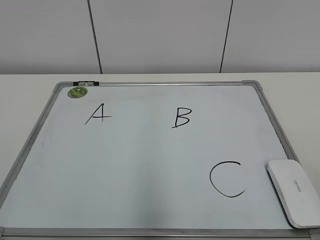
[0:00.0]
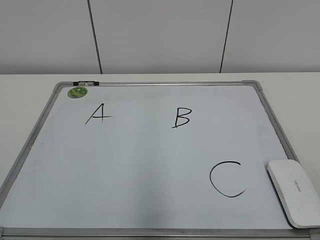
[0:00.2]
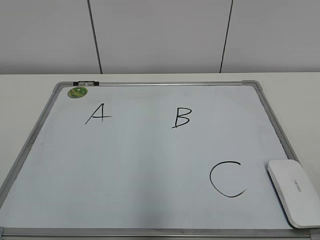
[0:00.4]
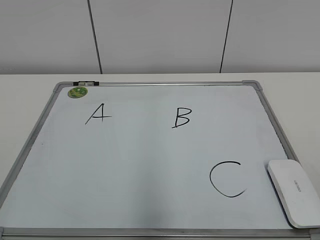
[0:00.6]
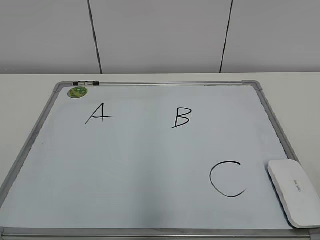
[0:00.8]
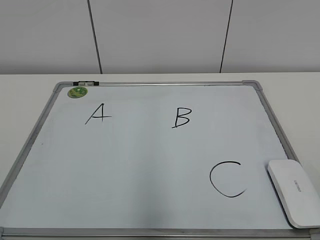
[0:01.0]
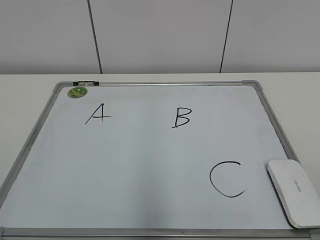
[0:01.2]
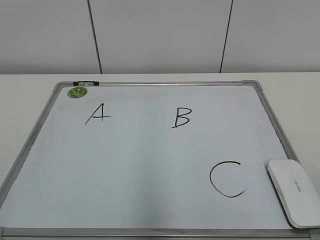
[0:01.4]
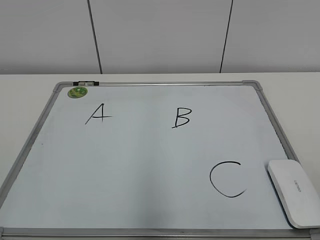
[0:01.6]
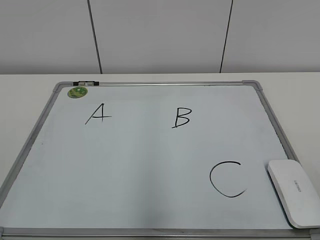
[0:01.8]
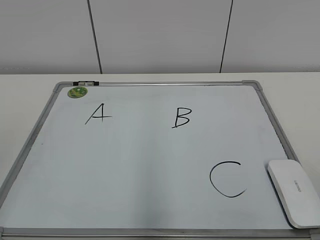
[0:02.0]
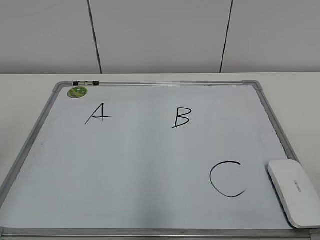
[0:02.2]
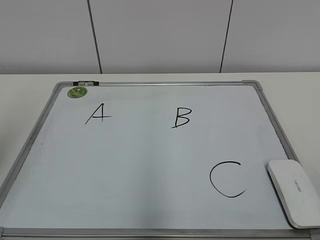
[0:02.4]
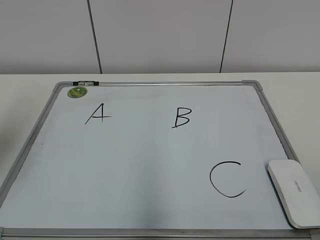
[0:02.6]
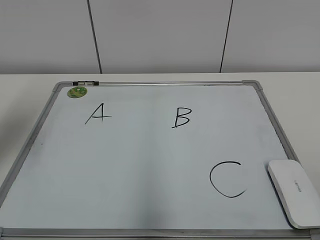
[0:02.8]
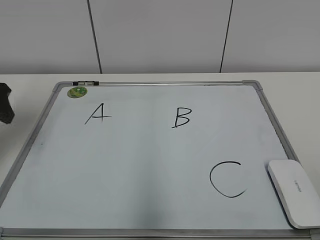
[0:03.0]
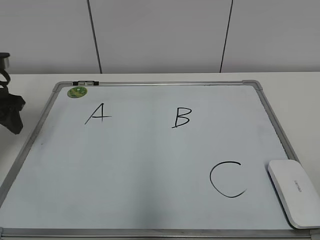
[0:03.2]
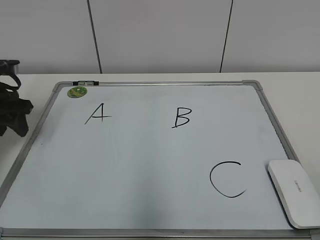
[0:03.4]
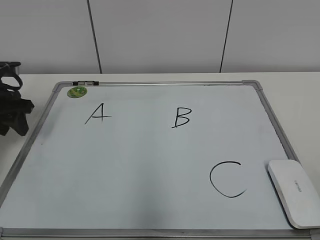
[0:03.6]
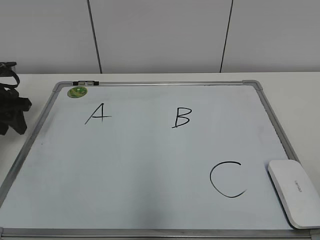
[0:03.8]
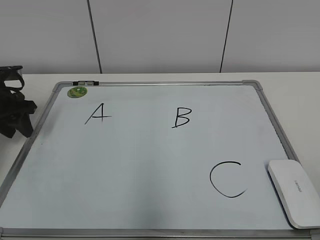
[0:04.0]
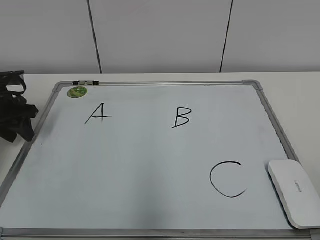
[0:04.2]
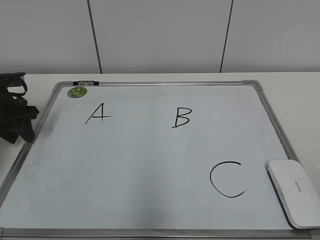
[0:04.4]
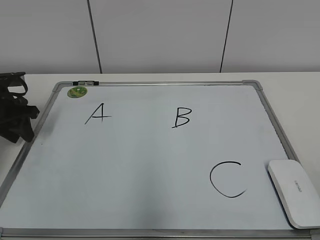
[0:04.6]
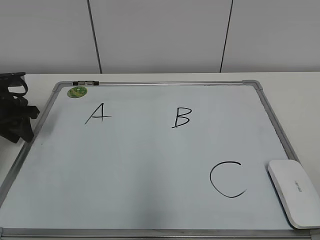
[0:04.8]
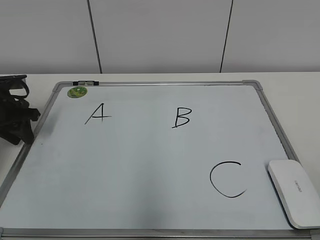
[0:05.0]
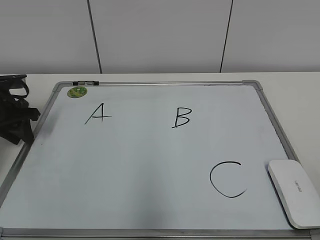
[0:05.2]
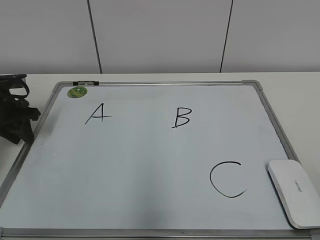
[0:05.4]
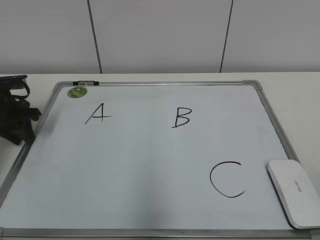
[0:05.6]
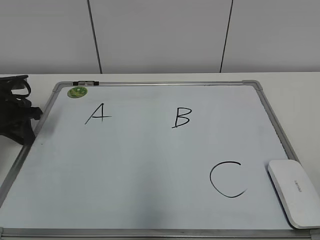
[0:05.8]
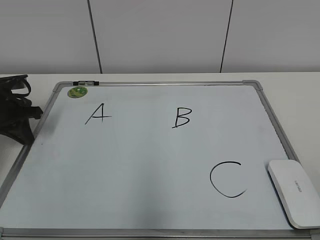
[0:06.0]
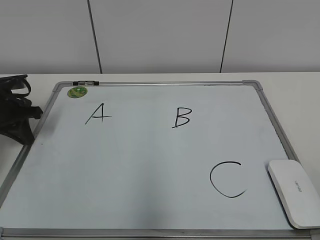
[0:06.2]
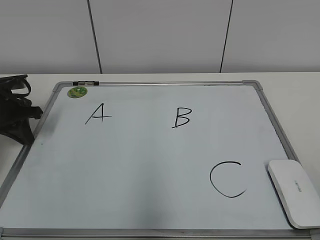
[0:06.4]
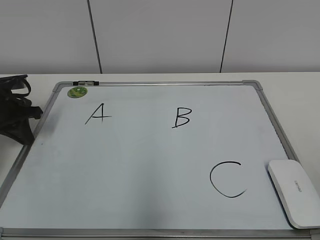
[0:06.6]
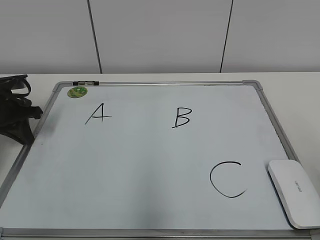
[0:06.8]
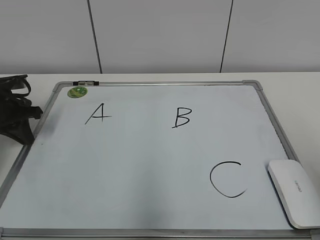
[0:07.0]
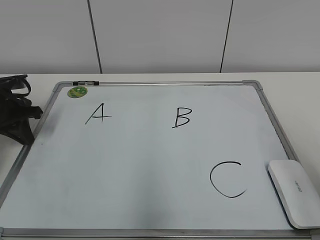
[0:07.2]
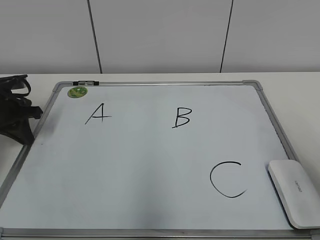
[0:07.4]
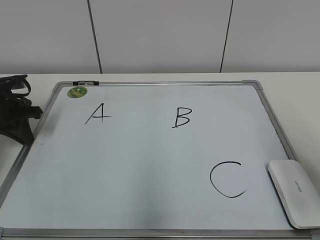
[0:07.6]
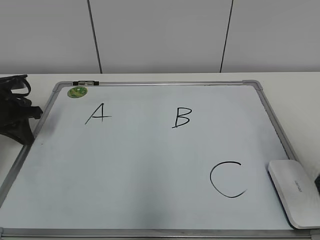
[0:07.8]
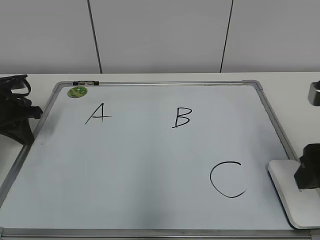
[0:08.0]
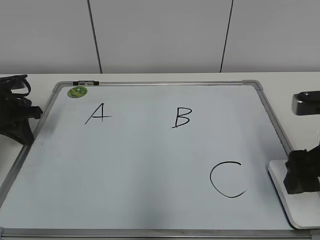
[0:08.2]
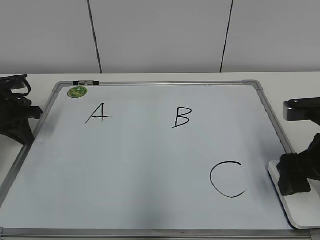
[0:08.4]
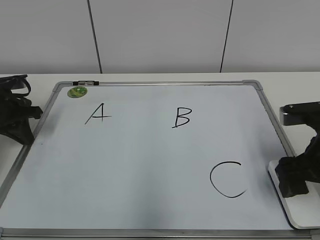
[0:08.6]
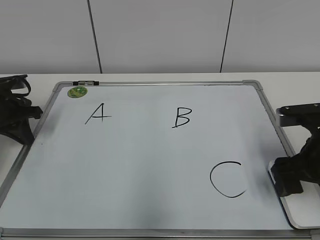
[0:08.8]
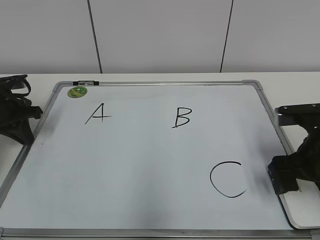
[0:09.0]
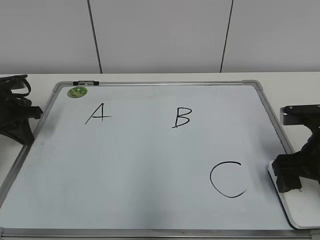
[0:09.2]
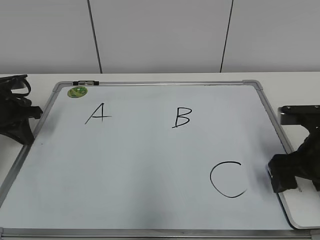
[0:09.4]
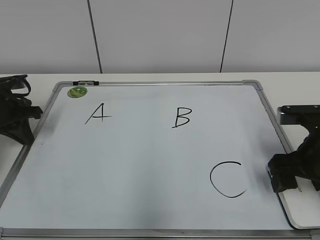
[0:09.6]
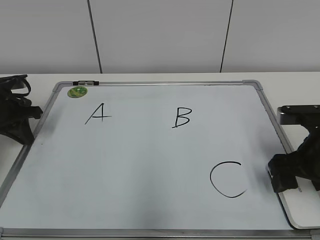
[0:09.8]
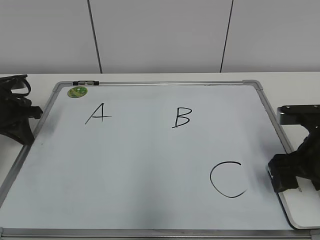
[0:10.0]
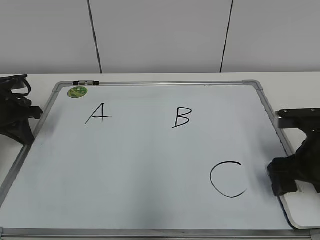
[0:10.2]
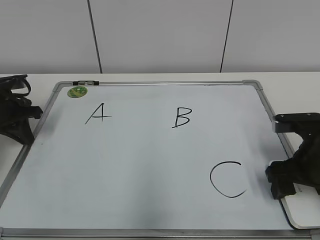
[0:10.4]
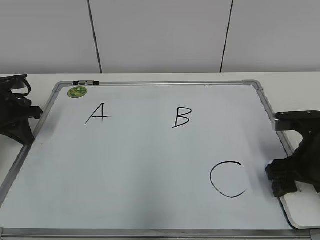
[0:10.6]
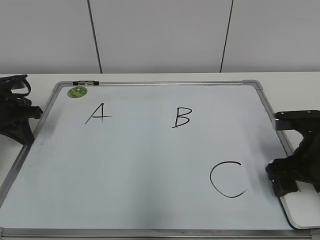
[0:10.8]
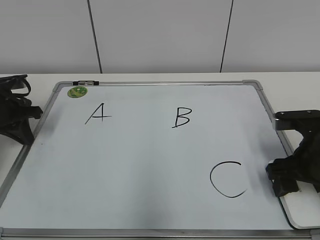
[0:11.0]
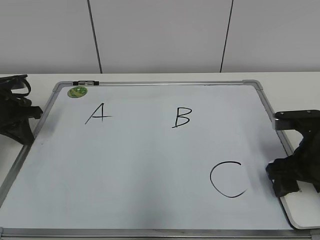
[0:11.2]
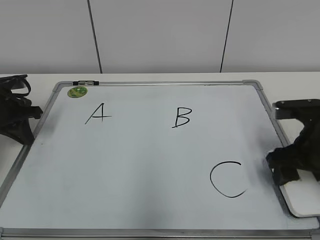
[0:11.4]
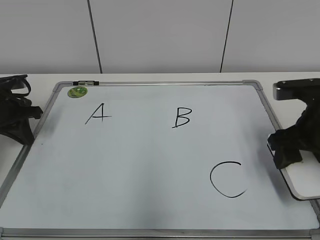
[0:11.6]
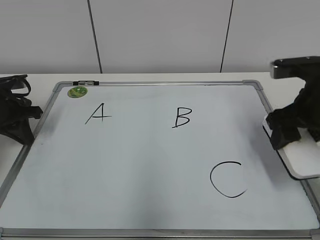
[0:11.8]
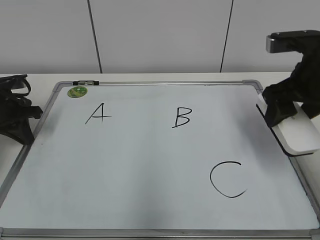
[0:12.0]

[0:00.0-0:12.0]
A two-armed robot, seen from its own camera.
Task of the whole recording: pick up the eraser on the blackboard and erase the letter "B".
Step, 0:00.0 to 0:05.8: Hold the drawing board steady with your left hand.
Step, 0:06.0 to 0:11.0: Grab the eraser with your right hand.
0:01.6 to 0:03.0: The left gripper goes approximately 35 cm forward.
0:03.0 to 0:04.4: The left gripper travels downward and forward by some 15 cm.
0:04.4 to 0:06.0: The left gripper closes its fingers.
0:06.0 to 0:07.6: The right gripper shifts about 15 cm forward.
0:07.6 to 0:09.0: The right gripper is displaced downward and forward by about 15 cm, and opens up.
0:09.0 to 0:10.4: The grippers move only a little.
0:10.4 to 0:12.0: The right gripper is displaced upward by approximately 10 cm, and closes its fingers.

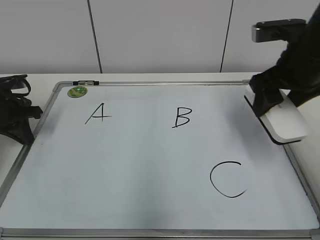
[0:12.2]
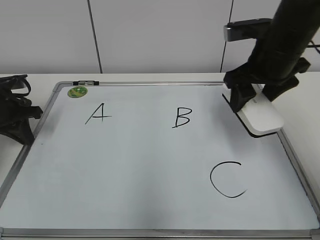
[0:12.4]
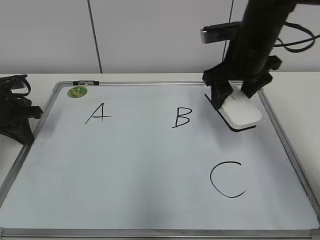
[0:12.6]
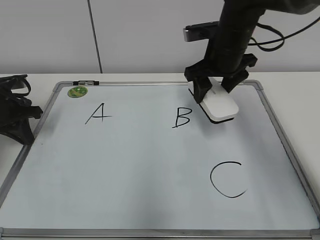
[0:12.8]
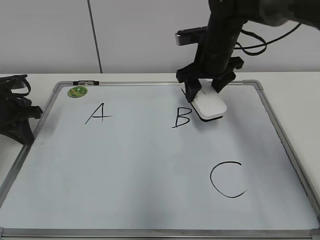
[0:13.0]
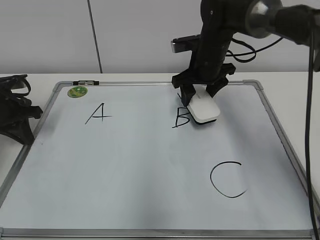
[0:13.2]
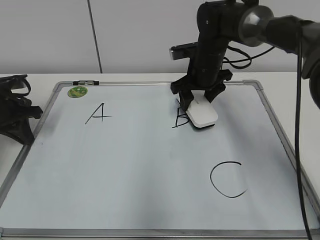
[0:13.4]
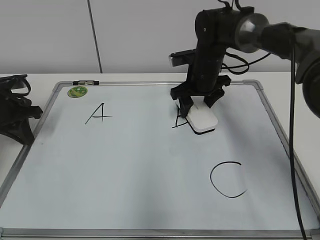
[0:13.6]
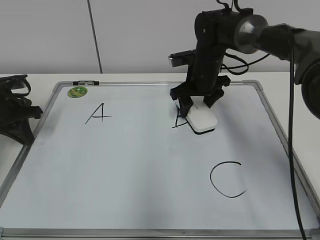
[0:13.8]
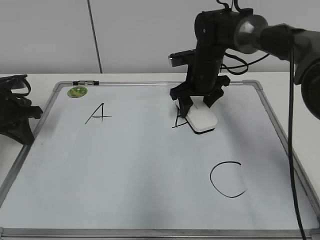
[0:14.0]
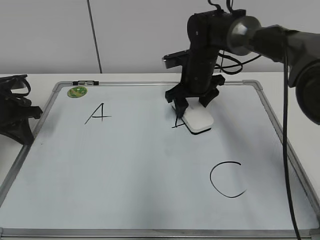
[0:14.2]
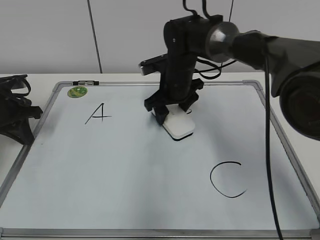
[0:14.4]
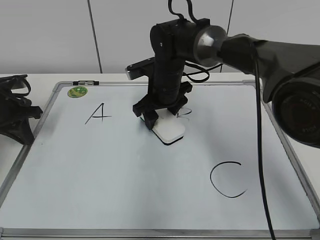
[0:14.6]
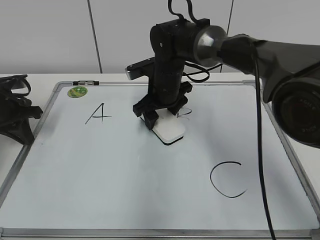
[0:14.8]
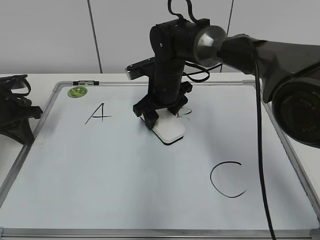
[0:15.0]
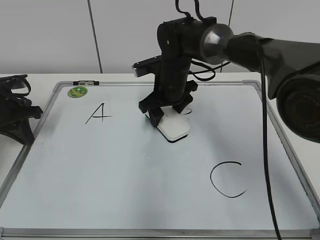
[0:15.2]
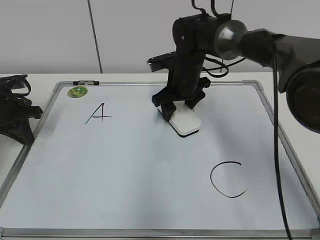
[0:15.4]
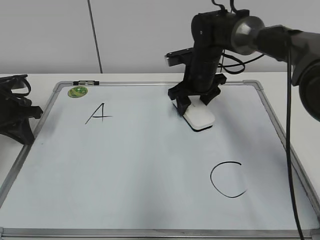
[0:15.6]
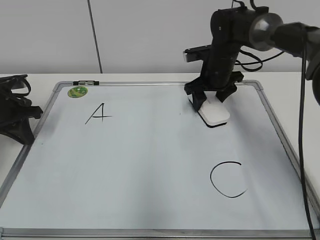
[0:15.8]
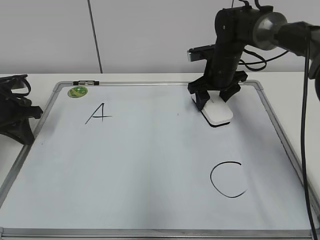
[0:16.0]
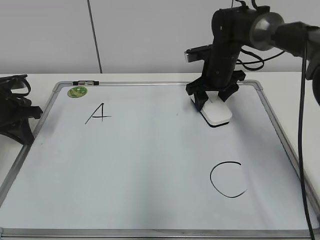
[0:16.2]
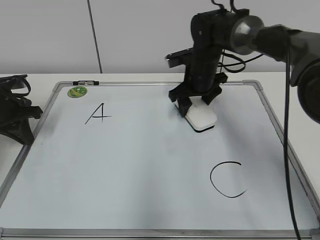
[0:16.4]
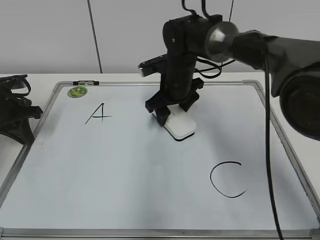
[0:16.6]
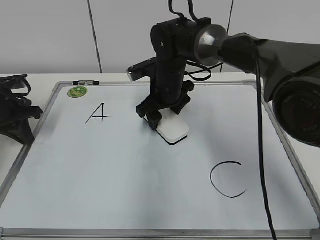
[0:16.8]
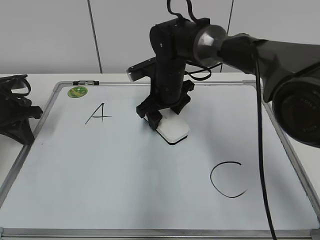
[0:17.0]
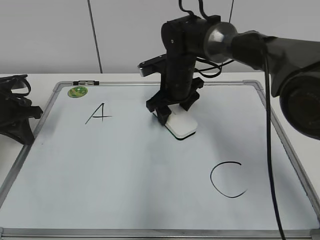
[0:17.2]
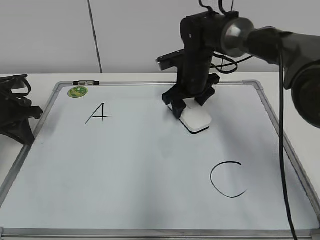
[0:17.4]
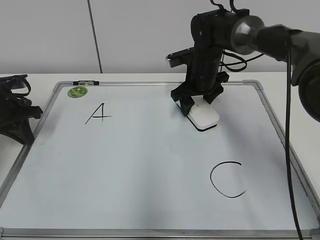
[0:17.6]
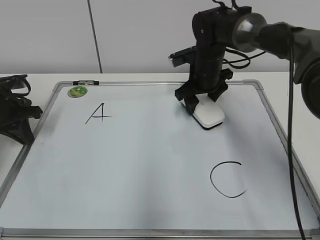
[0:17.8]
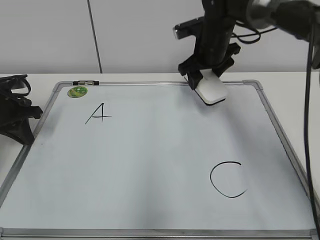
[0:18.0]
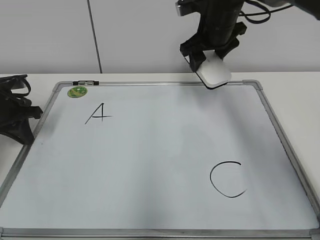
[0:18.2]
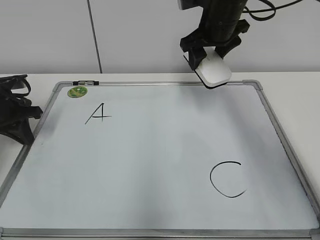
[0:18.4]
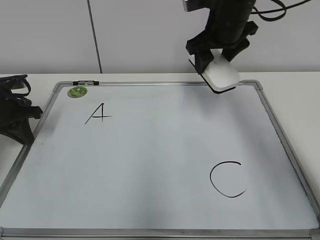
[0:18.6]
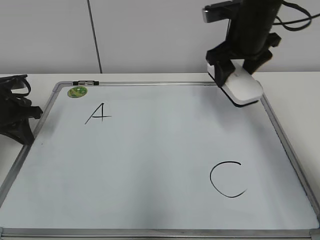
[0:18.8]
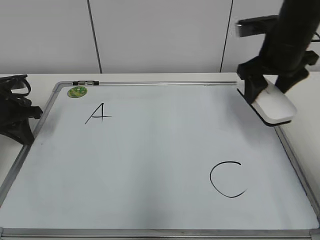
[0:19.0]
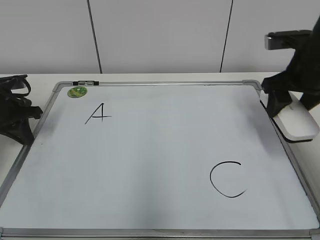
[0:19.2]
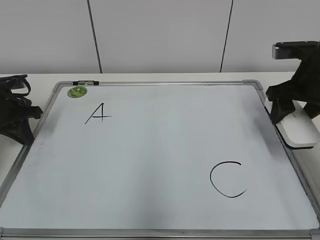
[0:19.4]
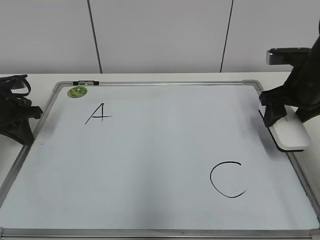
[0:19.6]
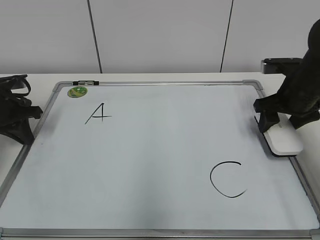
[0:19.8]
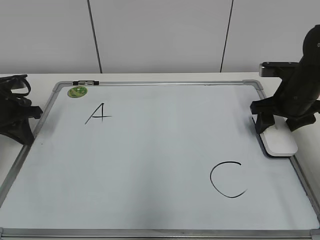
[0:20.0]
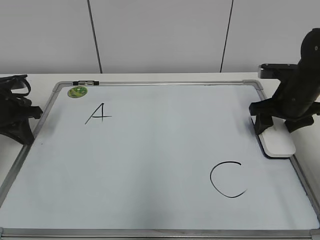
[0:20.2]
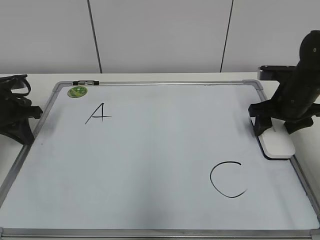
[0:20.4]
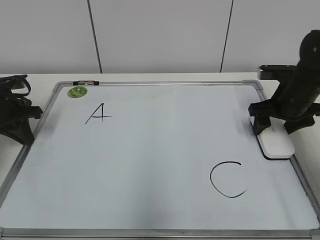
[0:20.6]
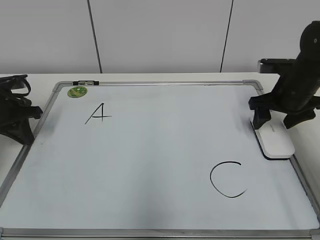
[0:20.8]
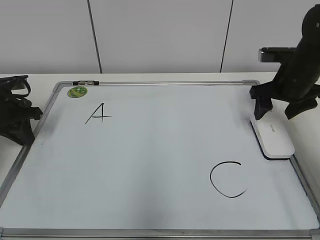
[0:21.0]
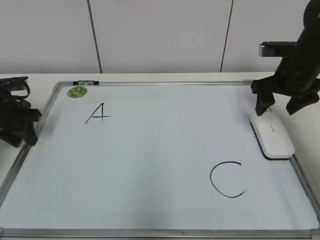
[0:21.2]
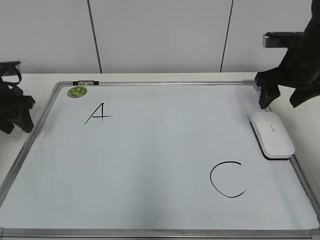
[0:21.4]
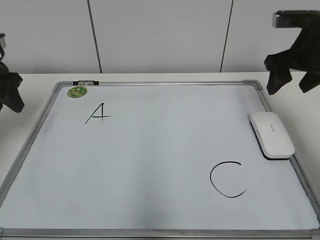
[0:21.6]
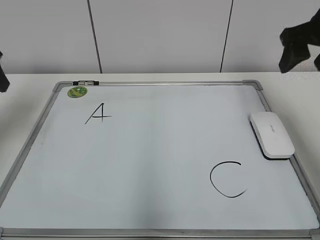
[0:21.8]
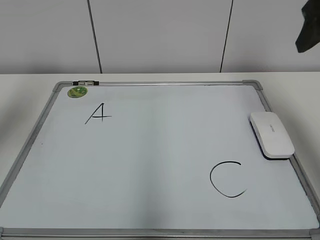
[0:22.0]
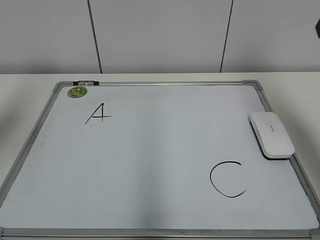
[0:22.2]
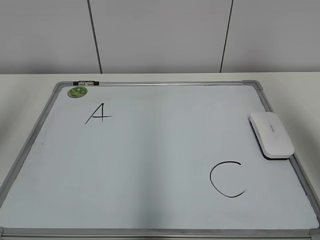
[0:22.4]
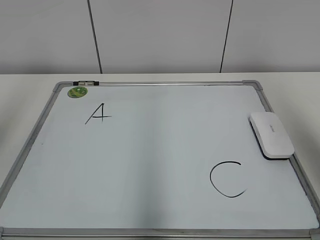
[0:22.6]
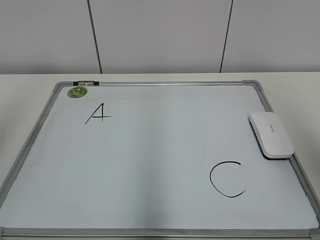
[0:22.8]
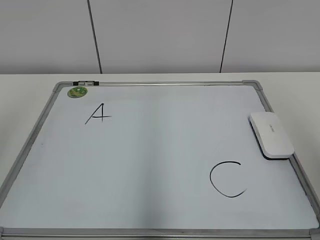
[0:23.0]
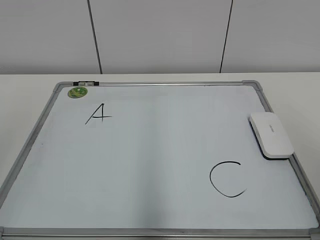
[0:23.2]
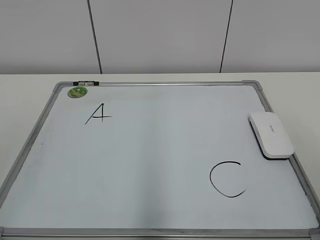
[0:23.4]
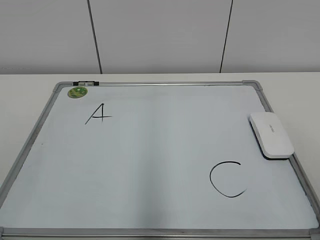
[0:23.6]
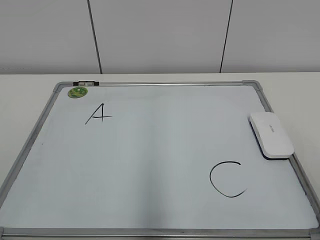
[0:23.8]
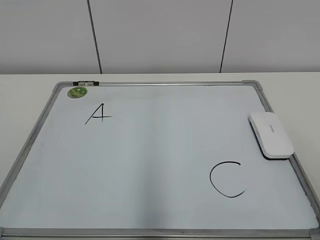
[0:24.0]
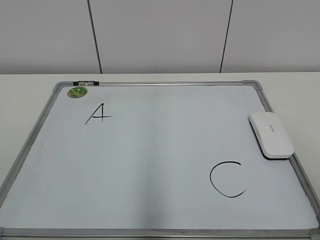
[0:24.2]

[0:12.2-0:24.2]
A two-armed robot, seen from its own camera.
Task of the whole recording: pick up the eraser on the blackboard and erase the letter "B".
Step, 0:12.2 to 0:17.6: Erase the letter B with your right hand.
Step, 0:17.8 to 0:20.6: Put down the eraser with your right hand.
0:12.2 to 0:13.8: The right gripper travels forward, downward and to the left by about 20 cm.
0:13.8 to 0:15.2: The right gripper is displaced to the left by some 5 cm.
0:15.2 to 0:16.6: The right gripper moves approximately 10 cm to the right and comes back.
0:16.6 to 0:18.2: The right gripper heads upward and to the right, covering approximately 15 cm.
0:18.2 to 0:19.8: The right gripper travels to the right, backward and downward by about 20 cm.
0:19.8 to 0:21.2: The right gripper opens up; the left gripper opens its fingers.
0:21.2 to 0:22.6: Both grippers travel together upward and backward, about 35 cm.
0:22.6 to 0:24.2: Both grippers travel together backward and downward, roughly 25 cm.
